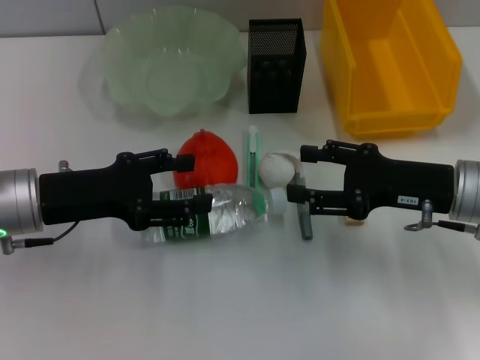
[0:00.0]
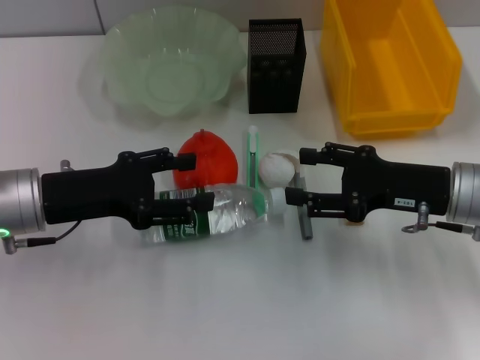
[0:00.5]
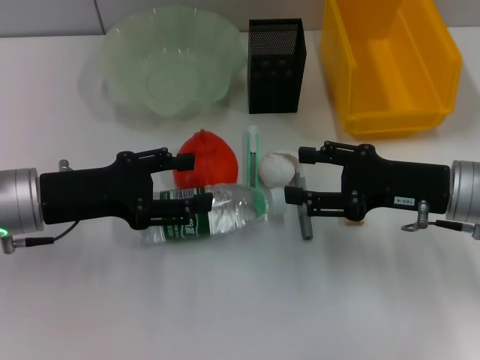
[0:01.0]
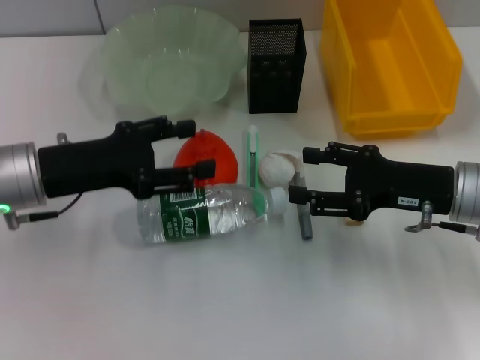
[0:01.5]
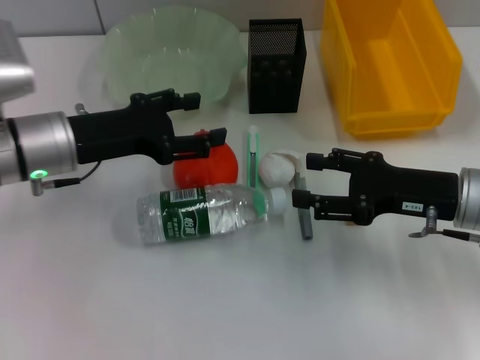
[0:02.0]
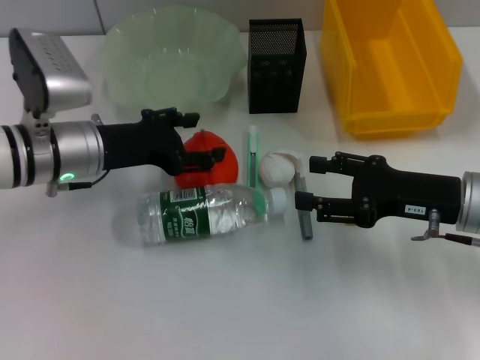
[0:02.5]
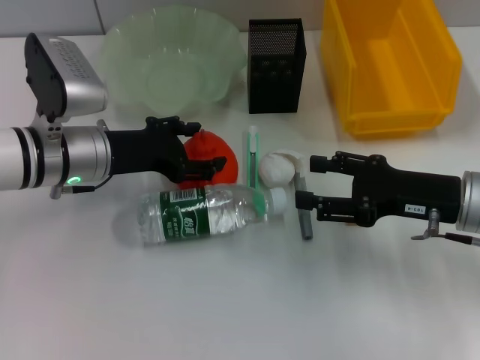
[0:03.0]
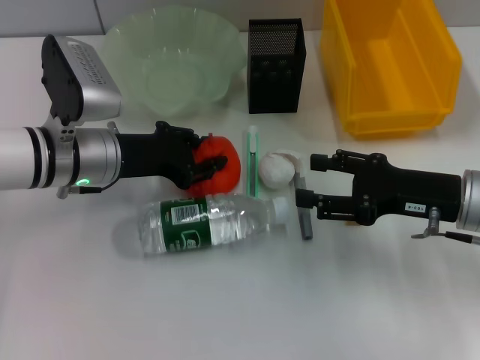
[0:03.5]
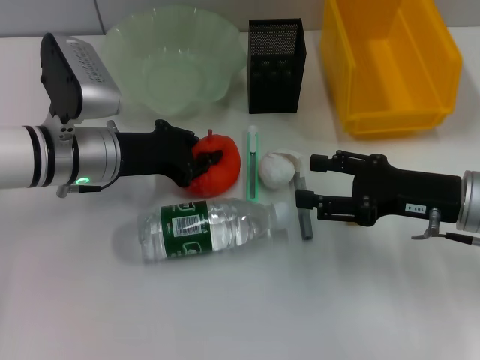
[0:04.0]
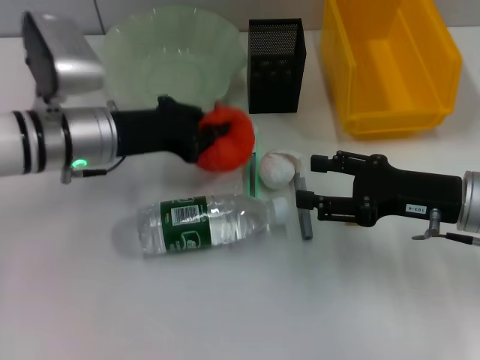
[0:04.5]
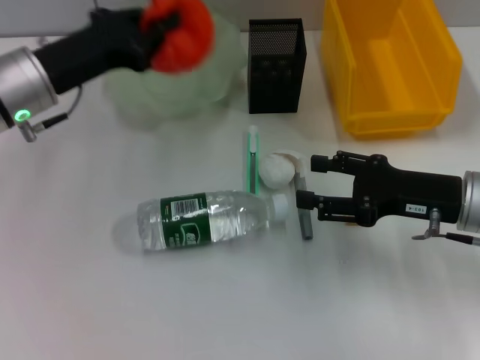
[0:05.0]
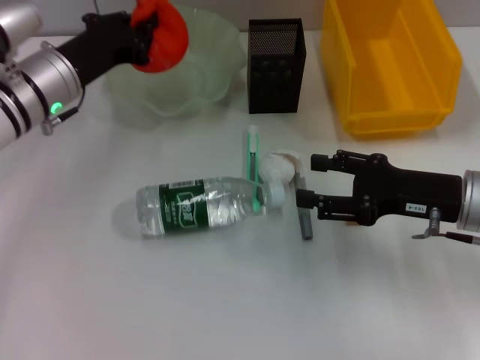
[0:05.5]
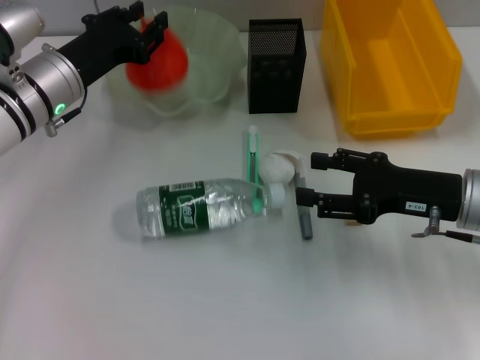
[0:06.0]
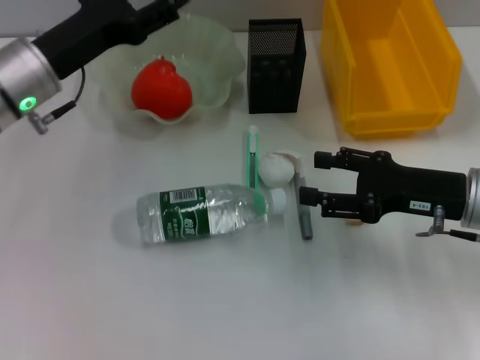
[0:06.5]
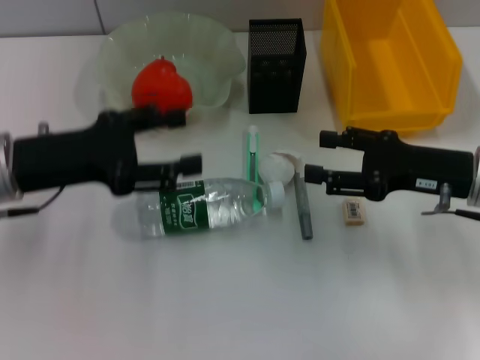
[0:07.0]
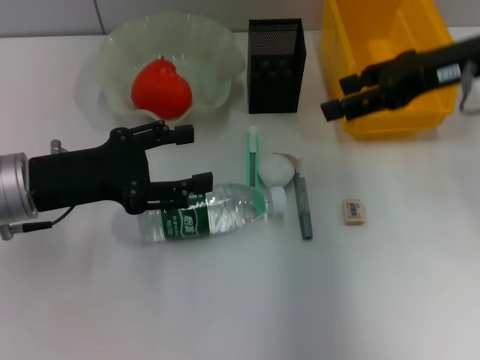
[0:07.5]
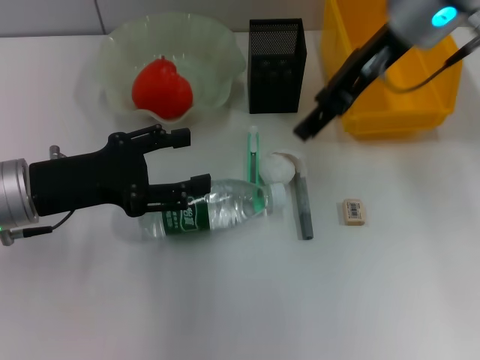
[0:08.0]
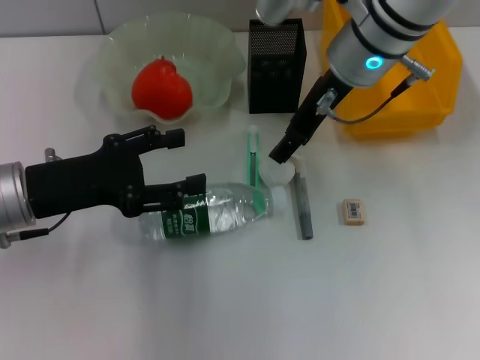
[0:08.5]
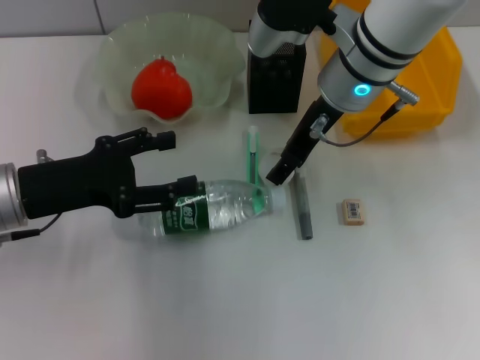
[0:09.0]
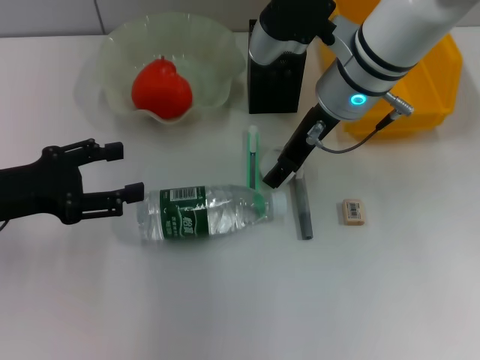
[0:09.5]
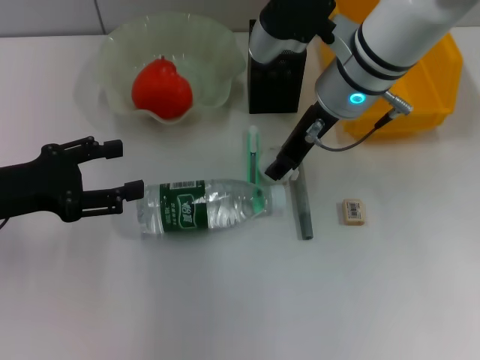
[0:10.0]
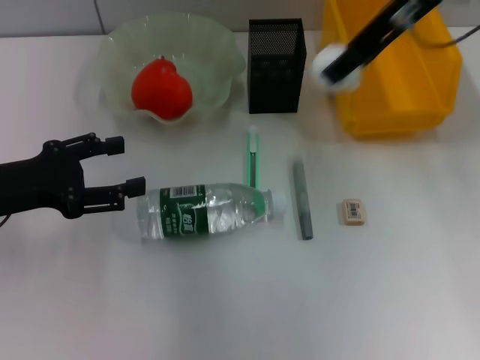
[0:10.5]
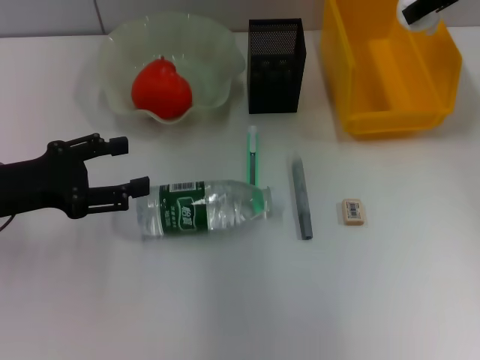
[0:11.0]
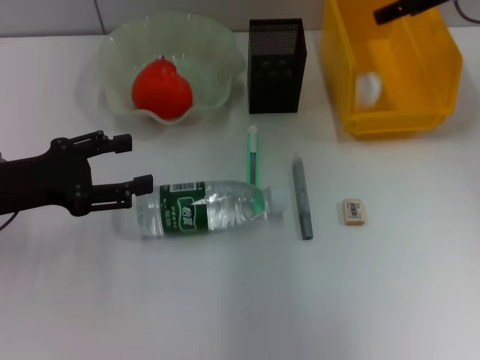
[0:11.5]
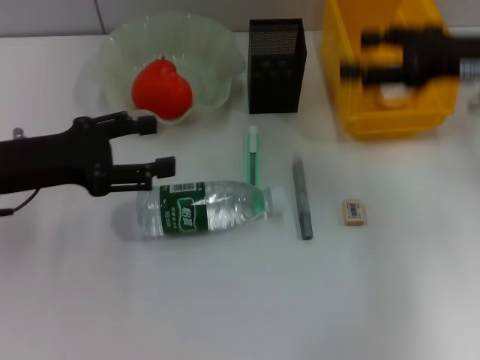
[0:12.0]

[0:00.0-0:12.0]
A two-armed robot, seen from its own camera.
Step, 0:00.0 to 0:04.0: Grab the orange with the left hand.
Step, 0:04.5 to 0:06.0: Place the orange into the fruit bowl with the left hand.
Step, 0:06.5 to 0:09.5: Grab the paper ball with the right hand.
Step, 0:10.0 to 0:11.0: Place the paper ball into the trash can with the right hand.
0:00.0 to 0:02.0: The left gripper shifts by roughly 5 cm.
0:02.0 to 0:04.0: The left gripper closes up.
0:04.0 to 0:06.0: The left gripper changes place by about 5 cm.
0:06.0 to 0:08.0: The left gripper shifts some 10 cm backward, and opens its fingers. The right gripper heads upward, forward and to the left, covering roughly 25 cm.
0:08.0 to 0:10.0: The left gripper travels to the left by roughly 5 cm, while the right gripper is displaced downward by some 10 cm.
0:10.0 to 0:12.0: The right gripper travels to the right by roughly 20 cm.

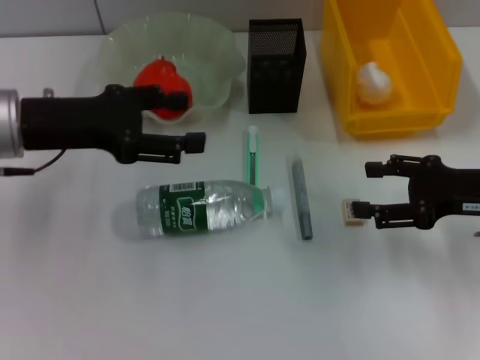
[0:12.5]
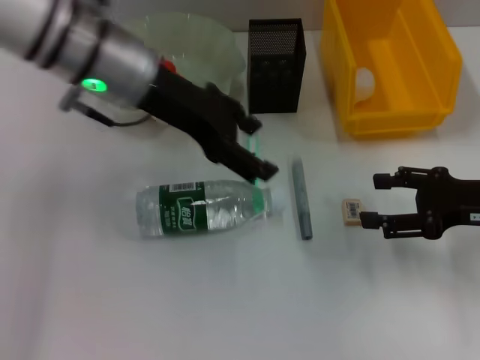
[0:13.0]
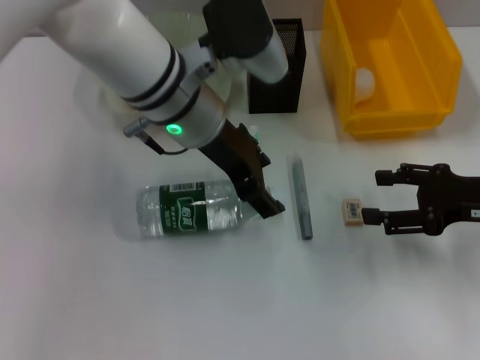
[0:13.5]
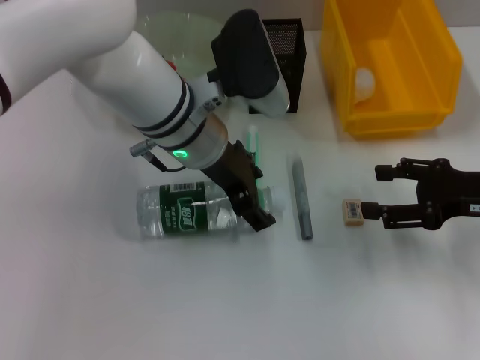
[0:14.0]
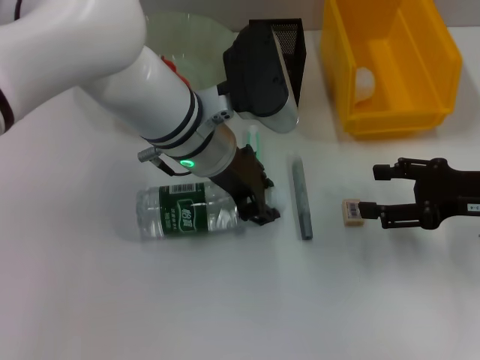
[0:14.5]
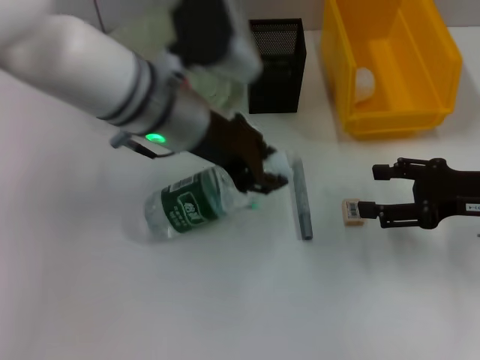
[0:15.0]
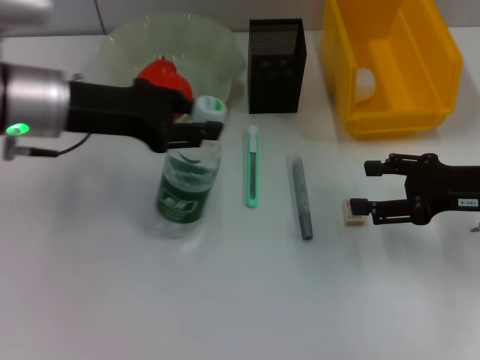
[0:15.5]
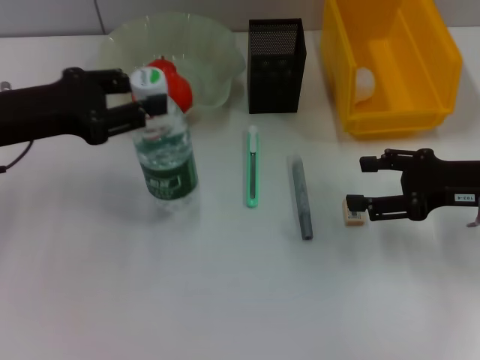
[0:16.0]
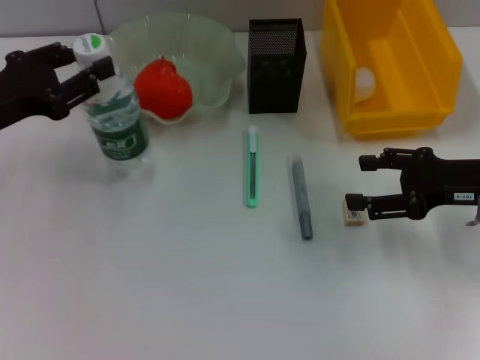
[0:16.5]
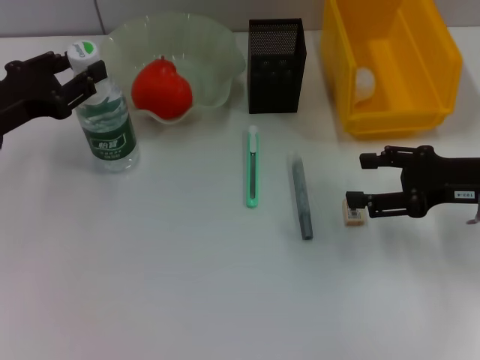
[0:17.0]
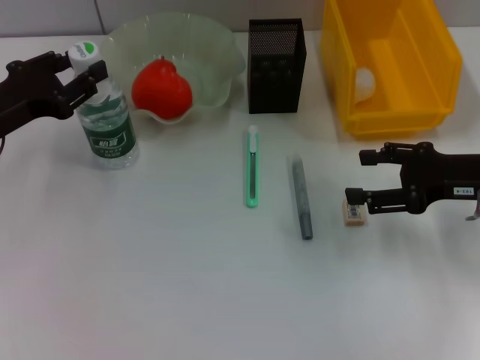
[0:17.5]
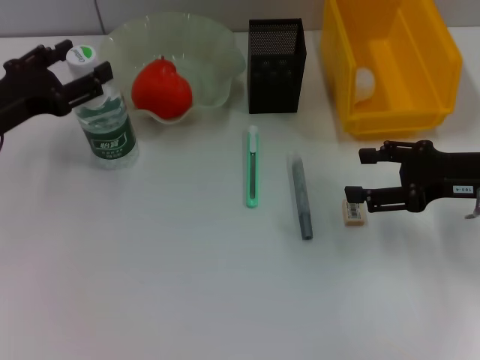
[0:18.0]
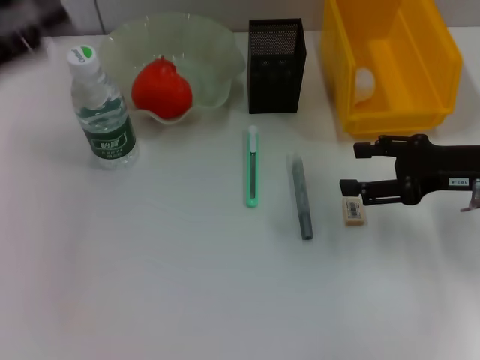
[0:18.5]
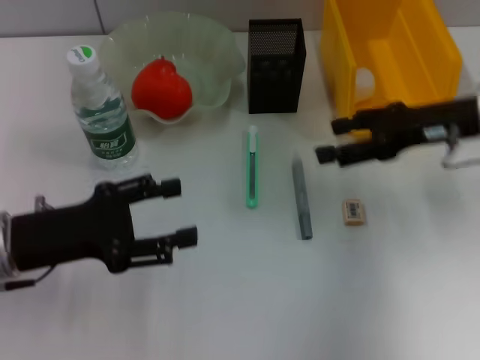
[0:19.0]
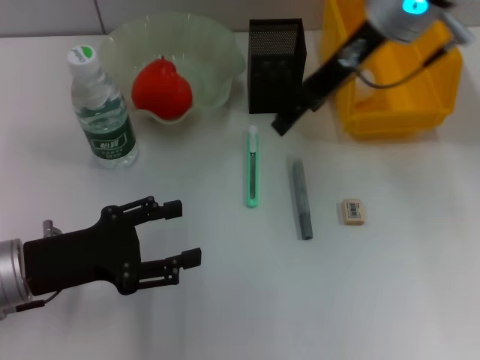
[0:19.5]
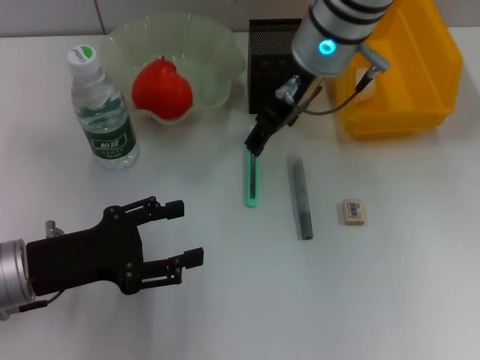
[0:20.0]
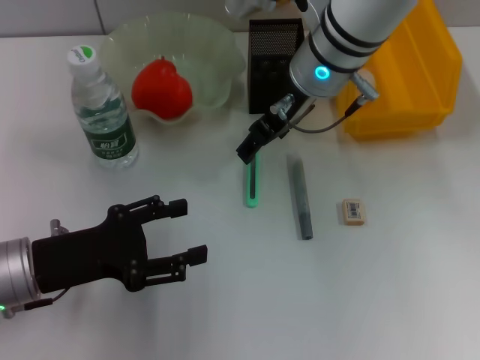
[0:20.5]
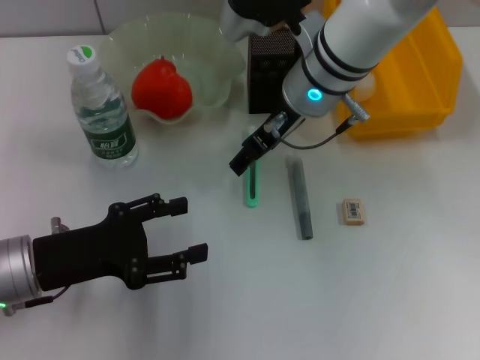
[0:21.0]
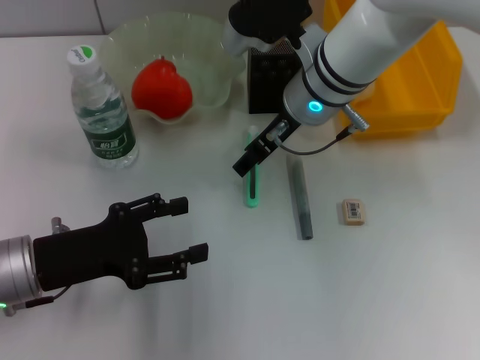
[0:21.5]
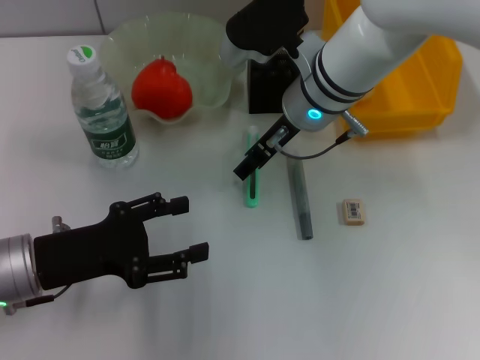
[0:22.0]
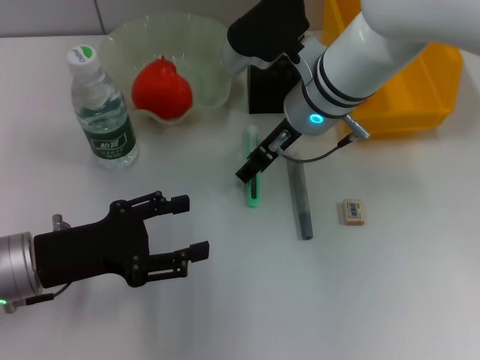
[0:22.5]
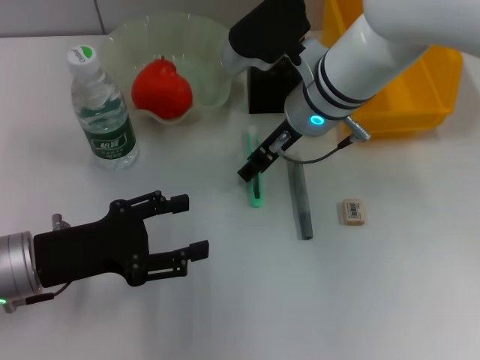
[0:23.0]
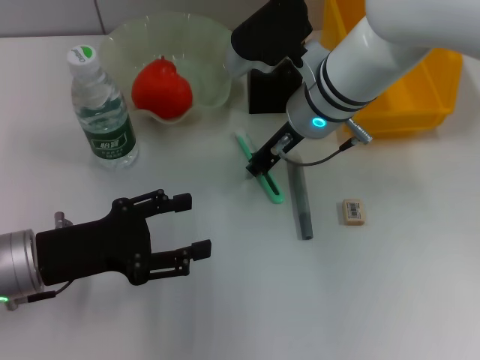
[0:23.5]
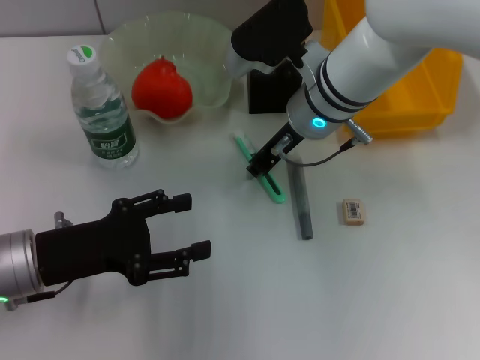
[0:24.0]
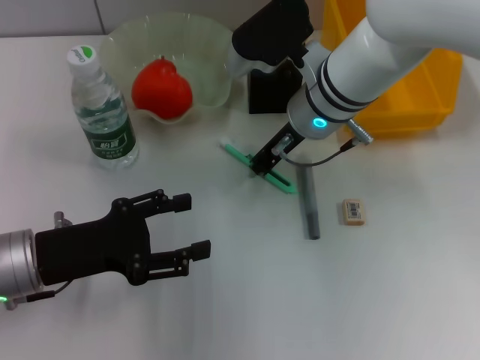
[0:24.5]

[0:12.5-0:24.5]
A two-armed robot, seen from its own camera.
Step, 0:12.5 to 0:14.5: Grab the water bottle with the left hand.
Step, 0:15.0 to 0:17.5: Place the water bottle on the table with the left hand.
0:12.5 to 0:14.5: The left gripper is displaced to the right by some 20 cm.
0:14.5 to 0:16.5: The left gripper goes some 25 cm to the left.
0:16.5 to 0:18.5: The left gripper goes about 5 cm upward, and opens up.
0:18.5 to 0:20.5: The right gripper shifts roughly 25 cm to the left and forward; the left gripper is displaced downward, to the right and backward by approximately 15 cm.
0:20.5 to 0:22.5: The grippers move only a little.
0:22.5 to 0:24.5: The right gripper closes.

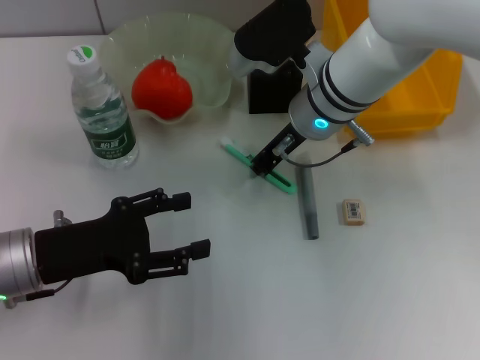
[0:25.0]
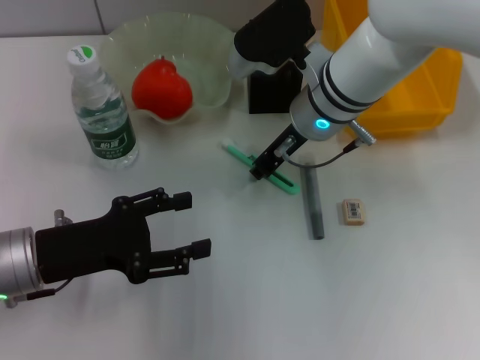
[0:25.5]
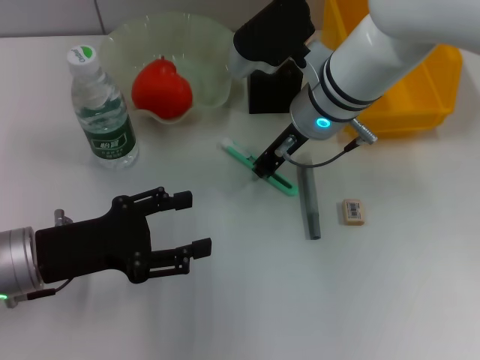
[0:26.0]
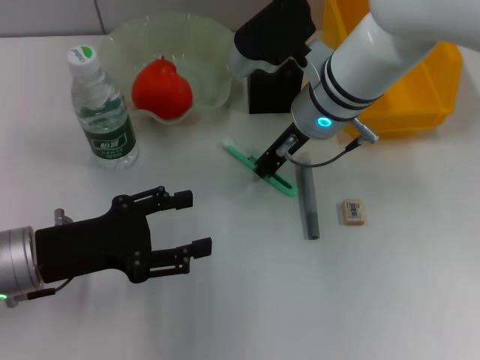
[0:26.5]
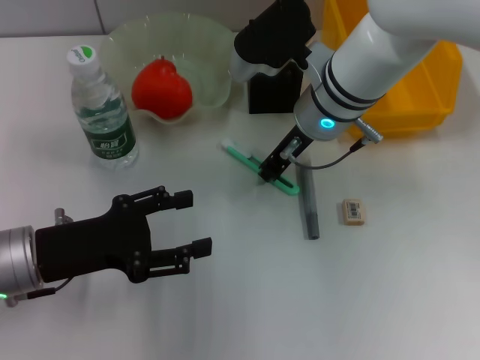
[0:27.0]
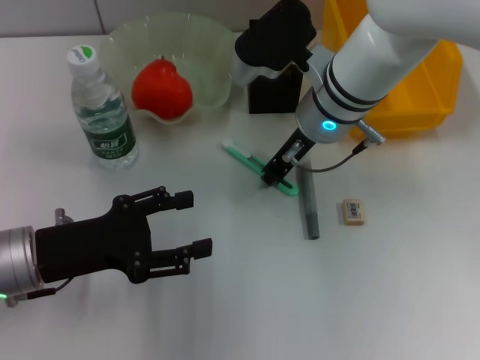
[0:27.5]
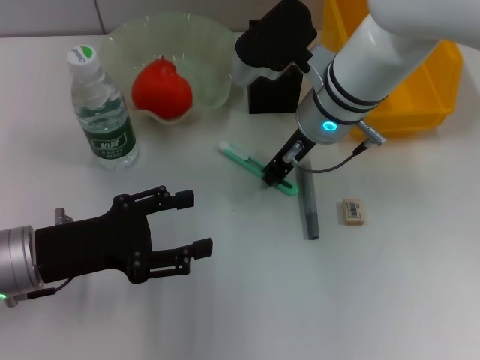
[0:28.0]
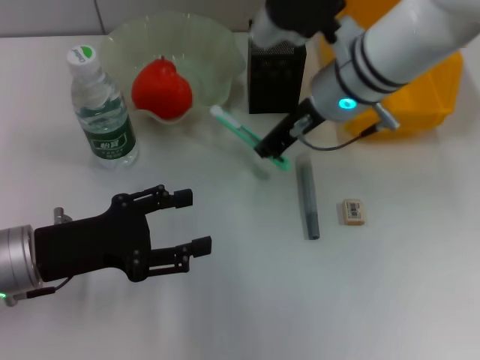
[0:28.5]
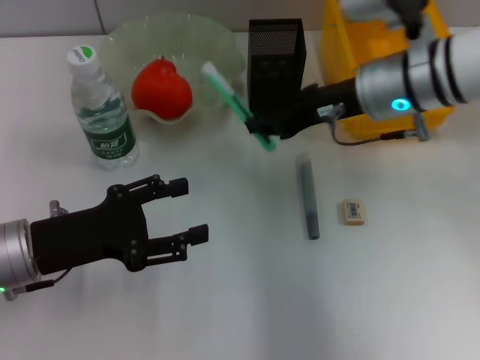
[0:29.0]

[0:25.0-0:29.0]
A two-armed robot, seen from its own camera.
Step, 0:25.0 to 0:28.0: Grab the blue utility knife with the right hand.
0:25.0 to 0:27.0: Both grippers stay put.
0:27.0 to 0:29.0: The right gripper moves to the right, about 5 cm.
